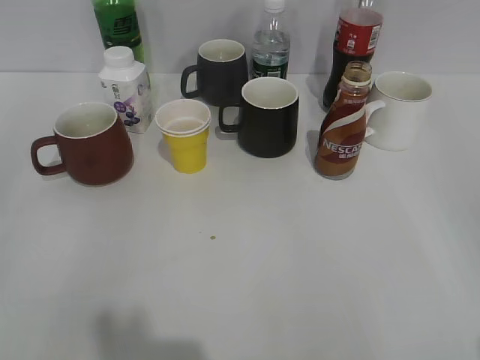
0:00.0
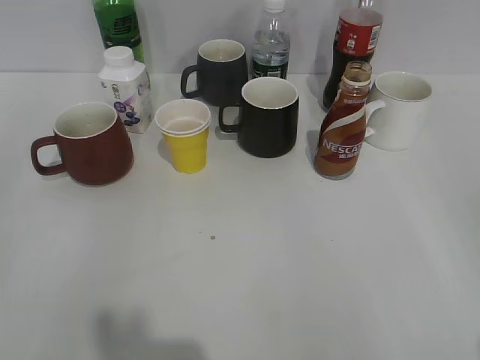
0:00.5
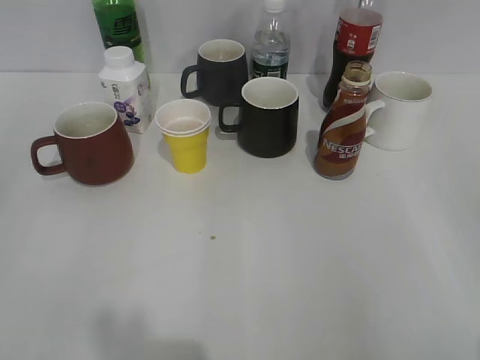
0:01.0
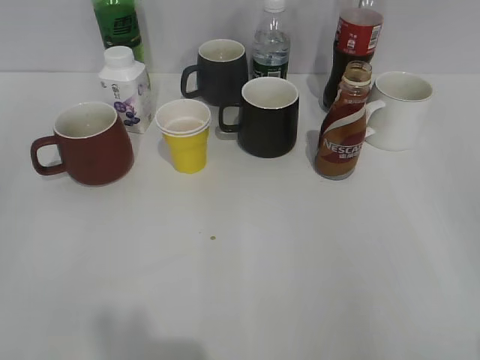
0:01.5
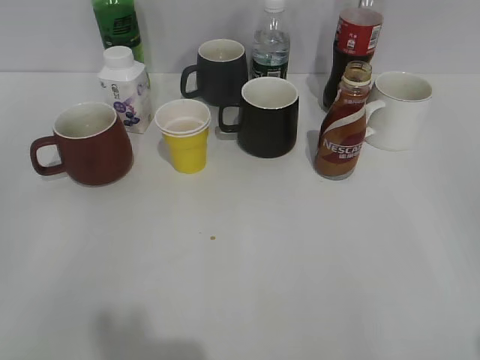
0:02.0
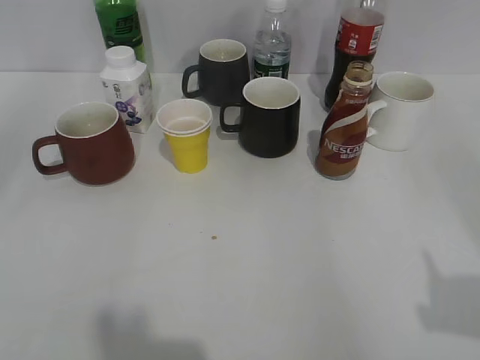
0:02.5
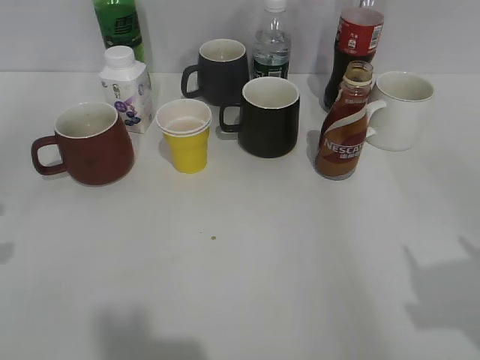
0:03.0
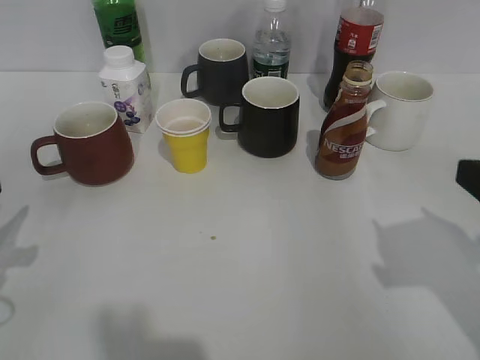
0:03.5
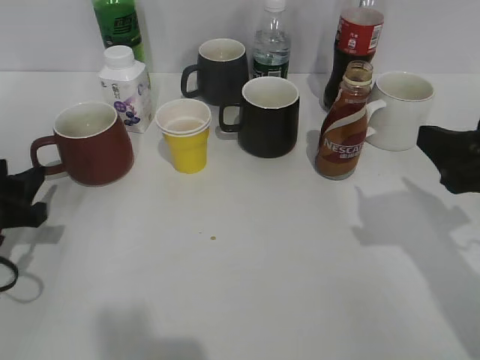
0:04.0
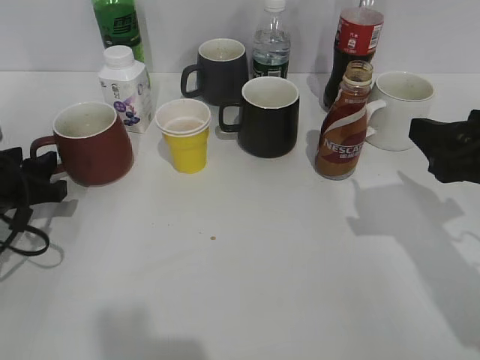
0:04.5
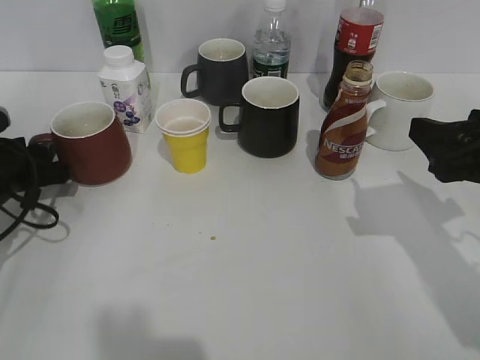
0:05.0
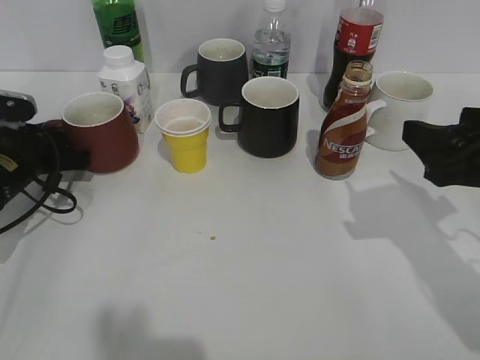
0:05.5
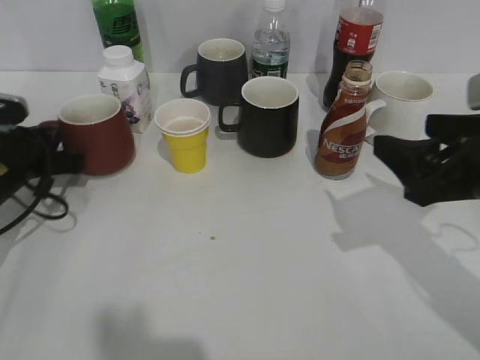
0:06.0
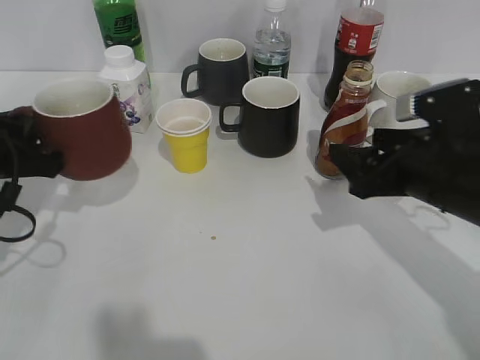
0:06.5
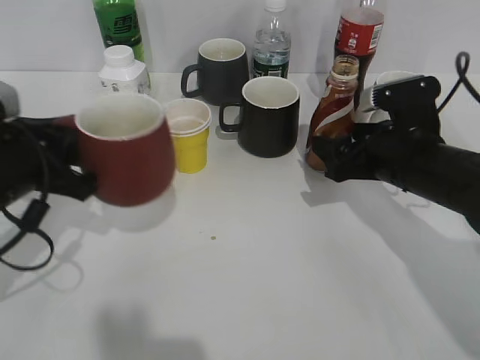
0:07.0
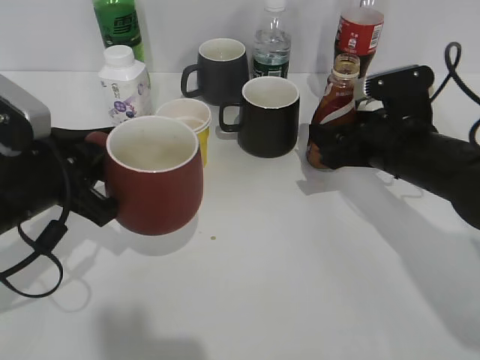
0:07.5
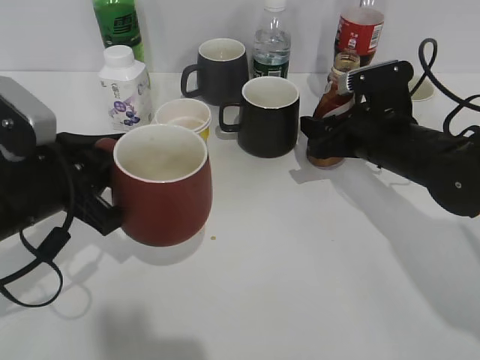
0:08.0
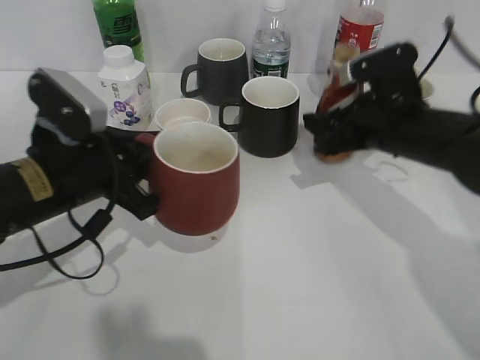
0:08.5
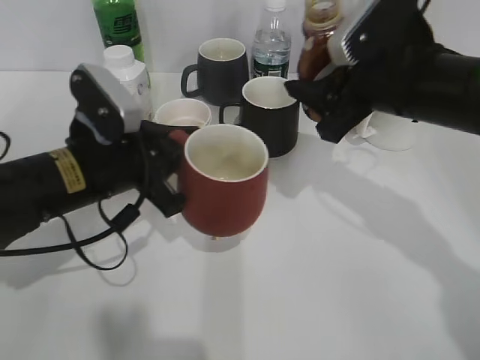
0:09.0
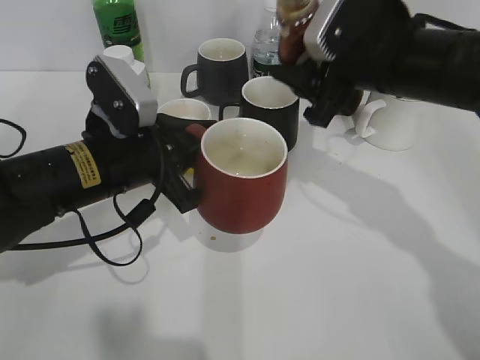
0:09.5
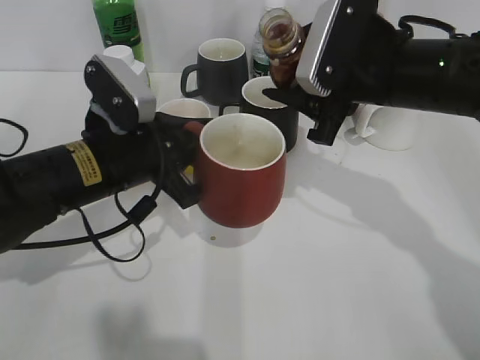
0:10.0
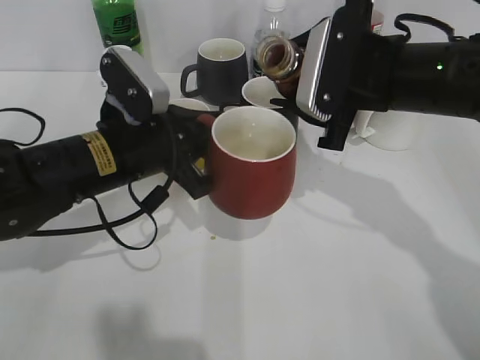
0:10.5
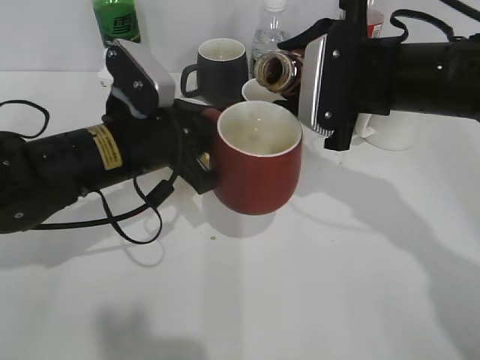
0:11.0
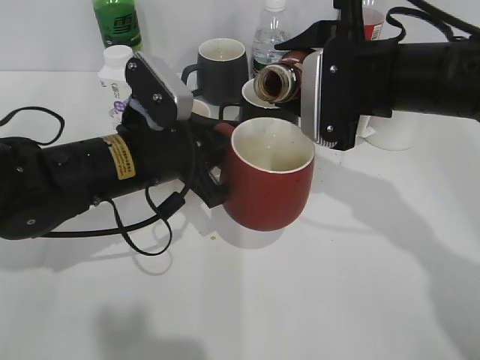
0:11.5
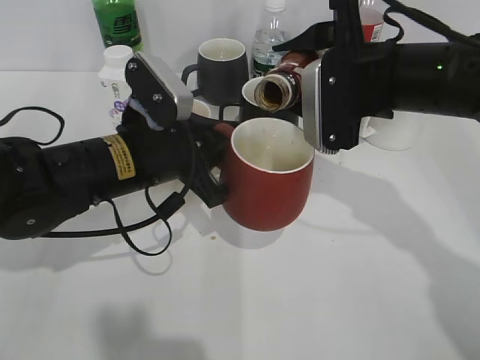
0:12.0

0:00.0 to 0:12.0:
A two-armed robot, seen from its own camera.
Step, 0:02.0 to 0:05.5: Grasp the red cup with left gripper.
Step, 0:06.0 to 0:08.0: Grasp the bottle with coffee with right gripper.
0:02.0 to 0:04.0: The right gripper travels forward by approximately 20 cm. The left gripper is displaced forward and downward by about 25 cm, and opens up.
0:04.0 to 0:06.0: The left gripper goes roughly 10 cm forward, and closes up.
0:06.0 to 0:08.0: The right gripper moves forward and downward, approximately 15 cm, and closes; the left gripper moves backward, to the right and upward, some 15 cm.
0:08.0 to 0:10.0: The left gripper goes approximately 10 cm to the right and forward. The right gripper goes about 10 cm upward.

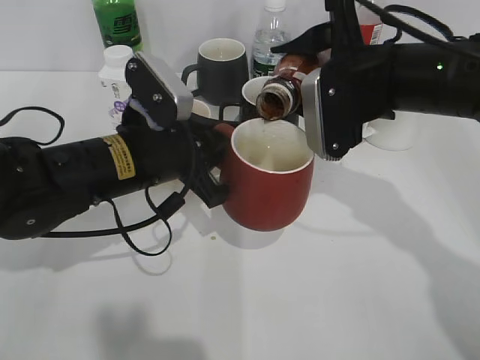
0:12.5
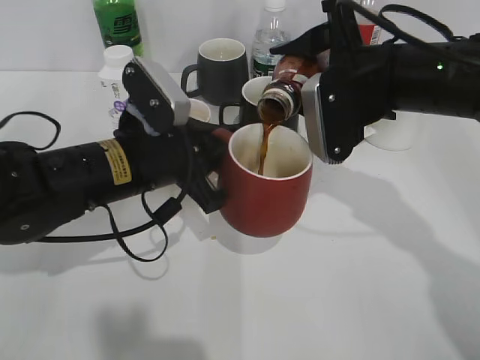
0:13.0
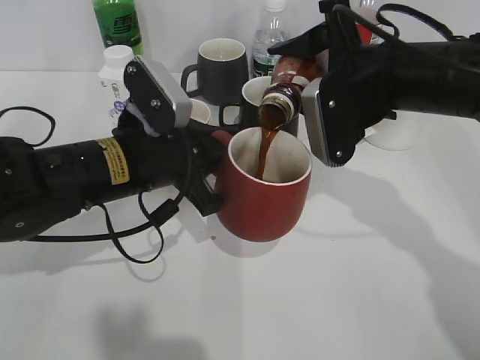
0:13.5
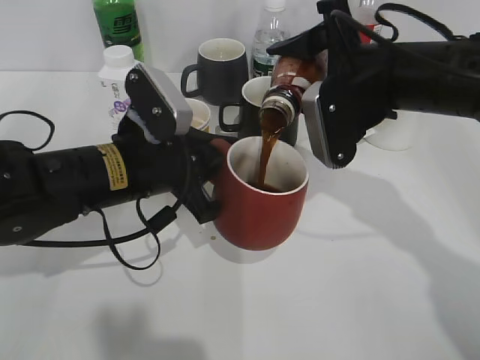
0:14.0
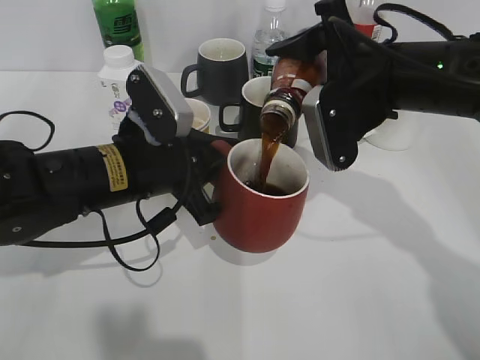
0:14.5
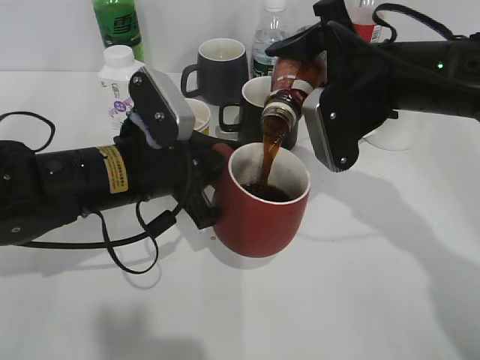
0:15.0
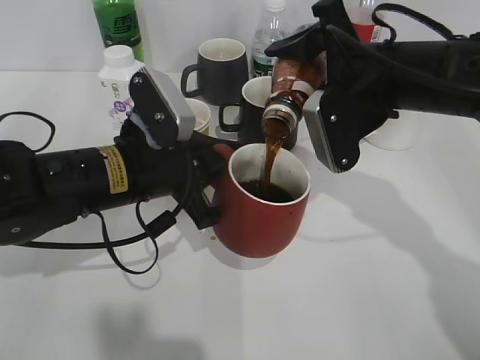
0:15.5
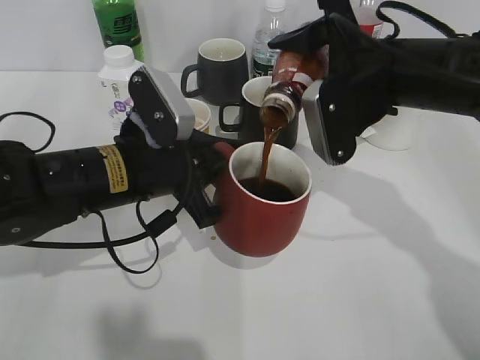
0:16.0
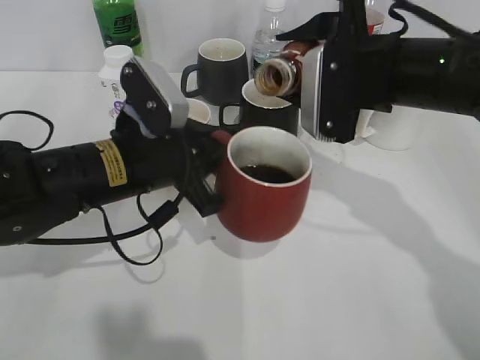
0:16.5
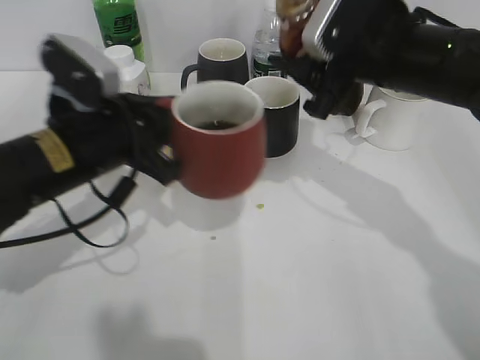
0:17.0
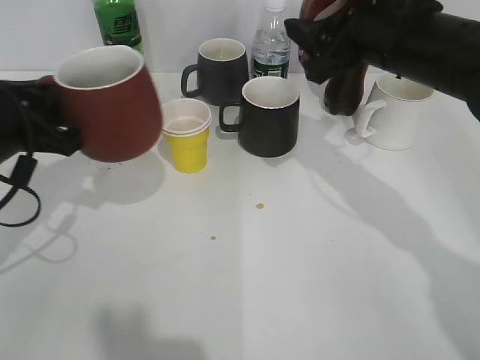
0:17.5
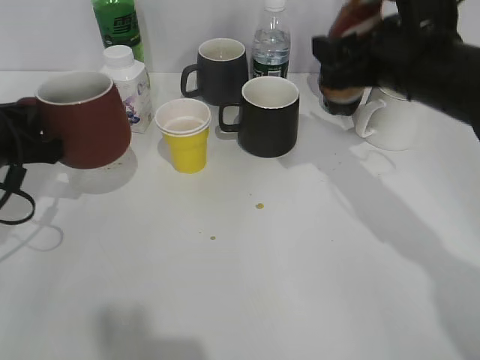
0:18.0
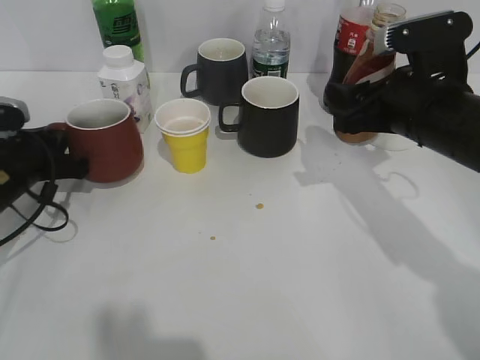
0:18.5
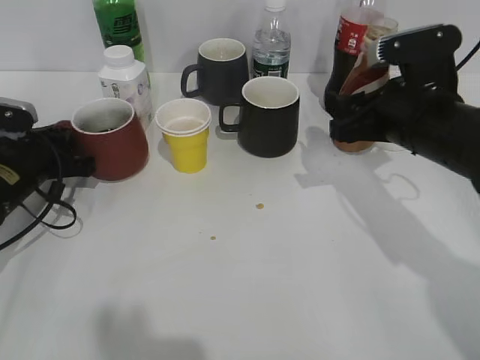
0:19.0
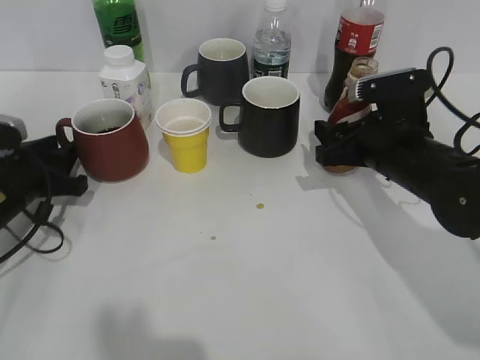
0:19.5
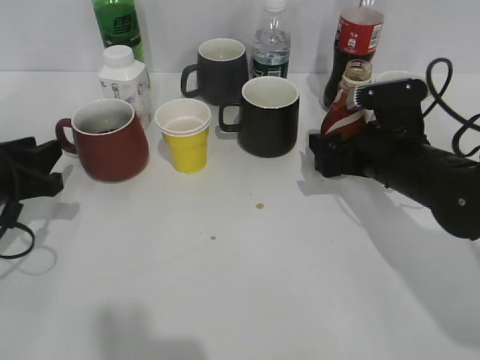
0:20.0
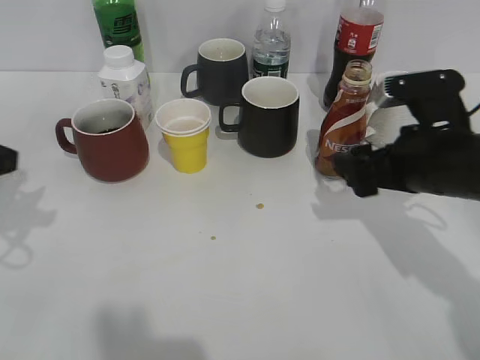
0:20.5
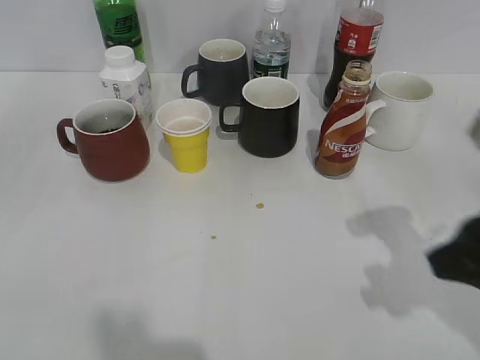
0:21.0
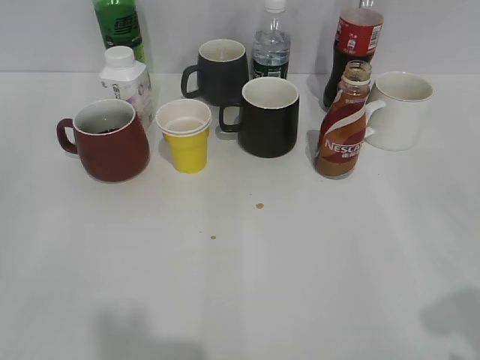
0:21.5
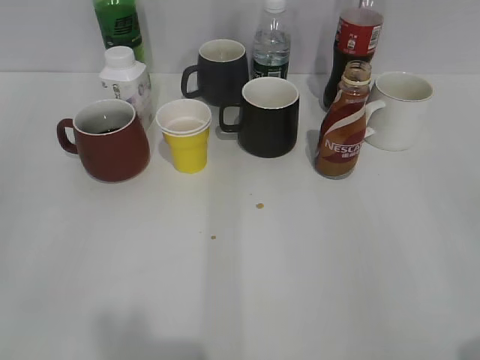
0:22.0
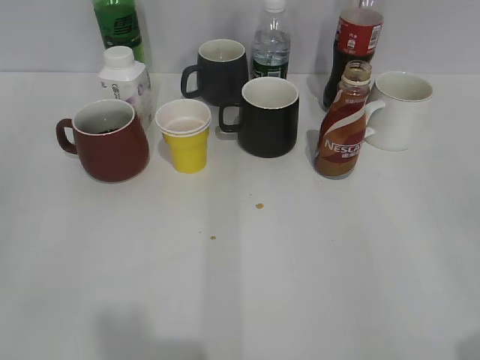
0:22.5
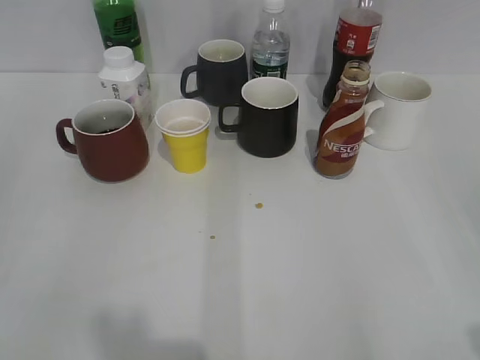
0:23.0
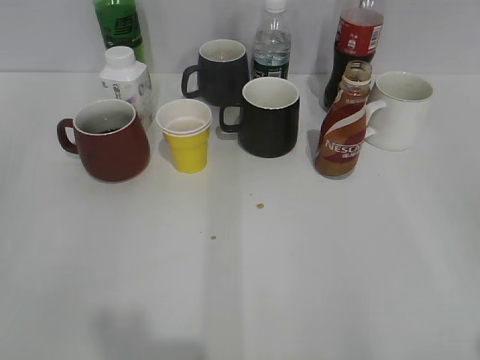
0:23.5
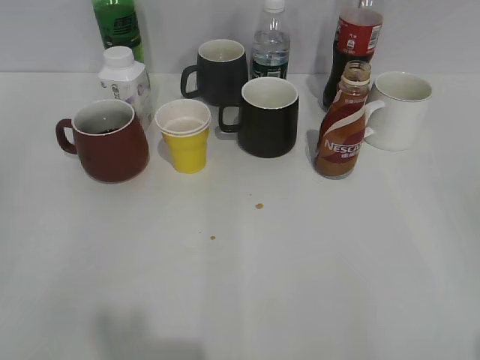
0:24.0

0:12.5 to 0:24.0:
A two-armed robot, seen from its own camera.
Step, 0:12.5 to 0:16.5: Pour the coffee from bottle to cup with right gripper.
Step, 0:17.0 to 0:18.5: Place the red cup on the table with left gripper.
Step, 0:19.0 to 0:20.5: Place the coffee bottle on the table with right gripper.
0:12.5 to 0:14.5: There are only small adjustments of the grippers.
0:16.5 to 0:18.5: The right gripper shifts by approximately 5 cm. Meanwhile the left gripper shifts approximately 15 cm to the left.
0:18.5 to 0:20.0: The left gripper shifts approximately 5 cm backward, and opens its fingers. Meanwhile the right gripper moves downward, approximately 5 cm, and opens up.
0:20.0 to 0:22.0: The right gripper moves backward, upward and to the right, some 35 cm, and closes up; the left gripper shifts roughly 30 cm backward and upward.

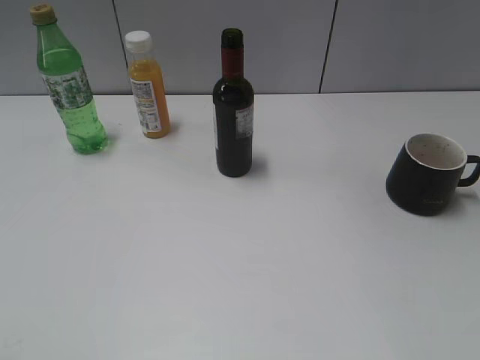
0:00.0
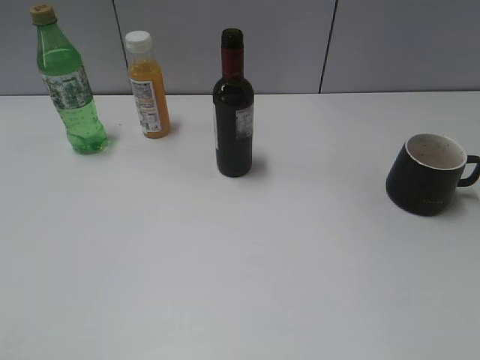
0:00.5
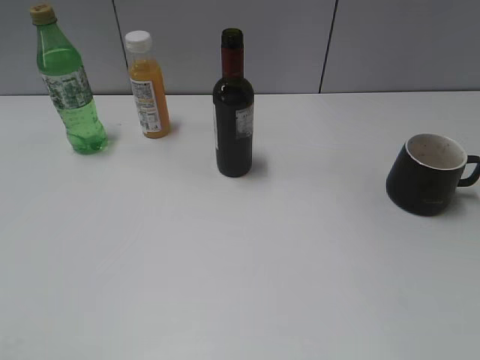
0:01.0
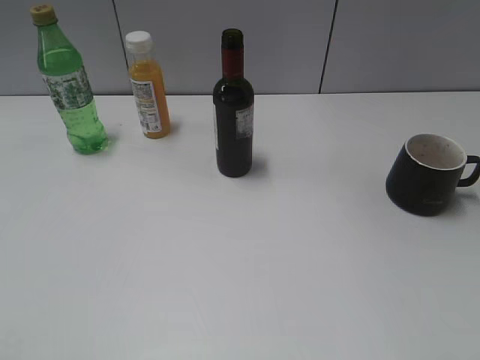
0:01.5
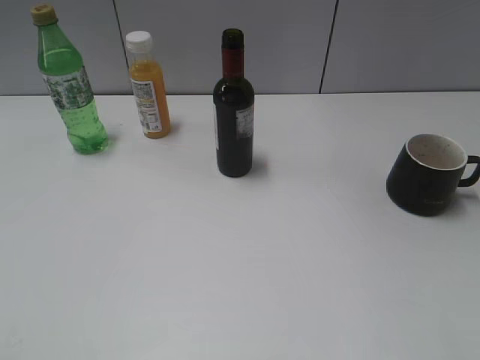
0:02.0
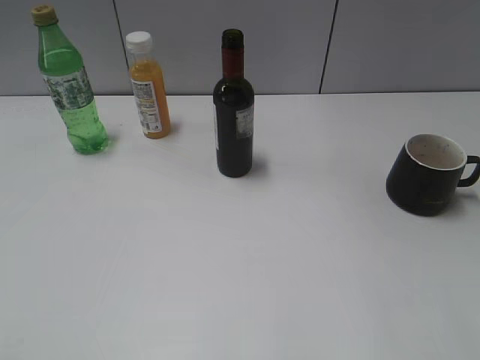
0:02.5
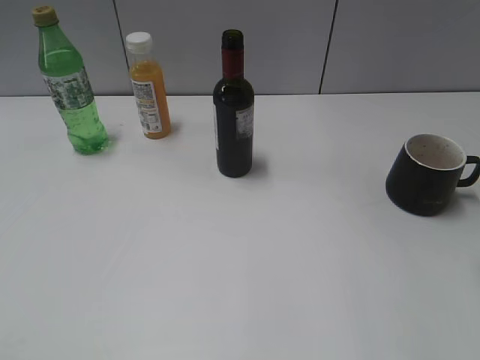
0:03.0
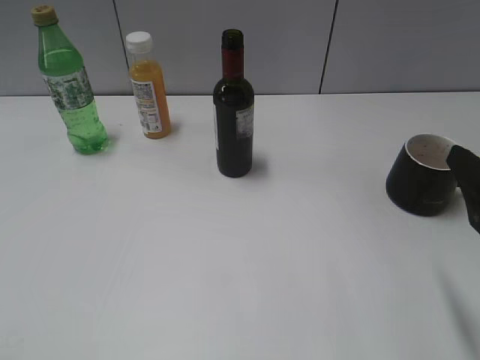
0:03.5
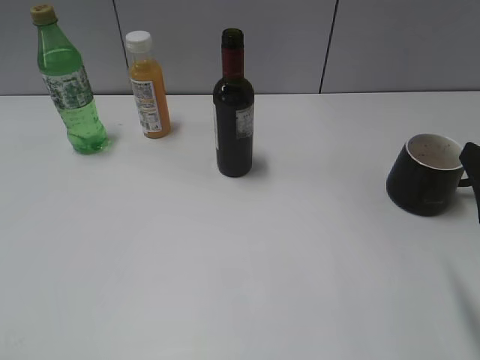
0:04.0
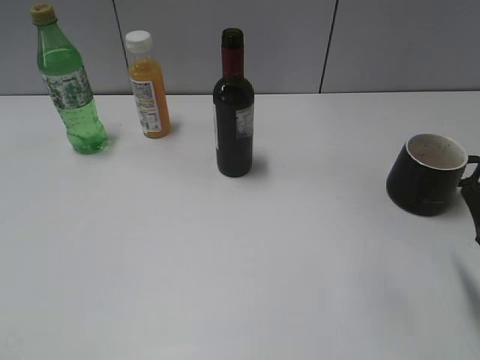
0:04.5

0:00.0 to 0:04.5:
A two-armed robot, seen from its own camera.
0:02.0 to 0:04.5: The right gripper heads forward and downward, covering roughly 15 cm.
